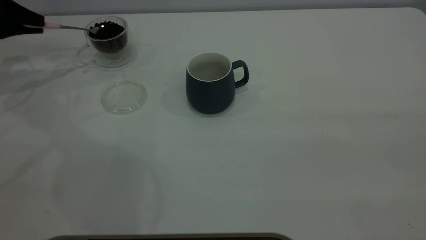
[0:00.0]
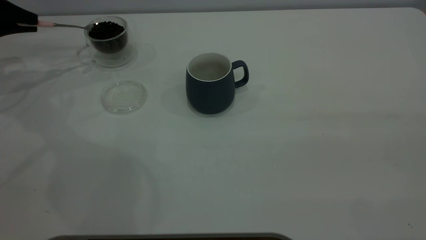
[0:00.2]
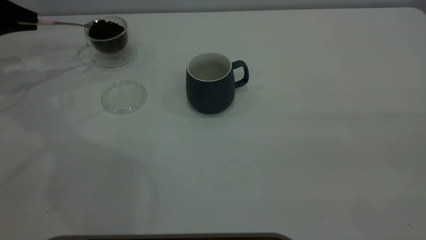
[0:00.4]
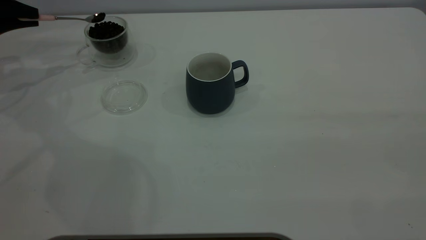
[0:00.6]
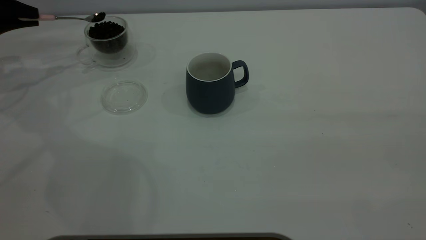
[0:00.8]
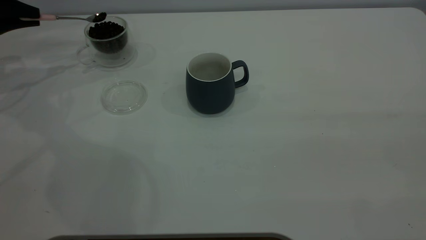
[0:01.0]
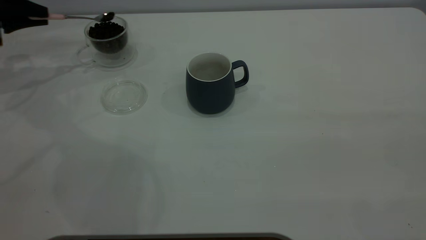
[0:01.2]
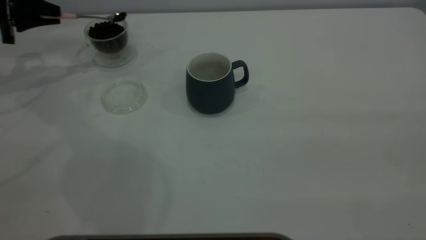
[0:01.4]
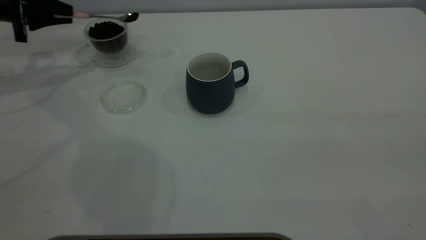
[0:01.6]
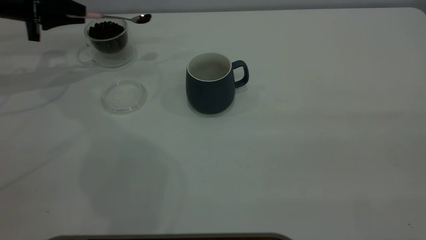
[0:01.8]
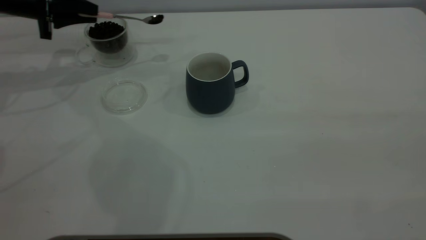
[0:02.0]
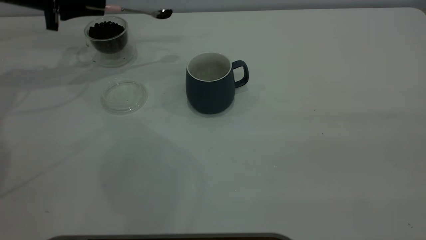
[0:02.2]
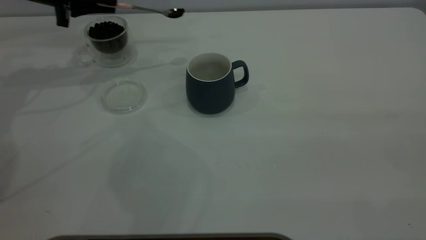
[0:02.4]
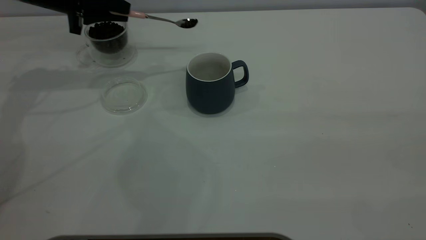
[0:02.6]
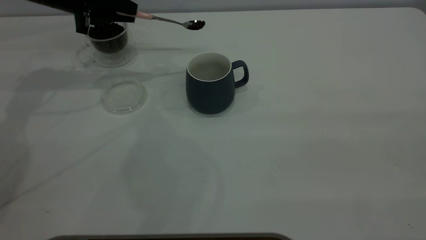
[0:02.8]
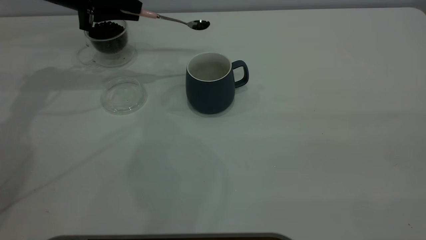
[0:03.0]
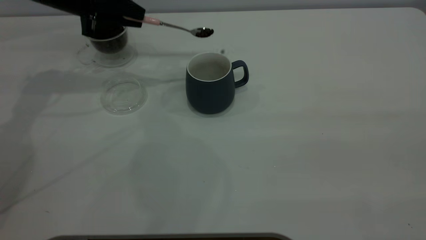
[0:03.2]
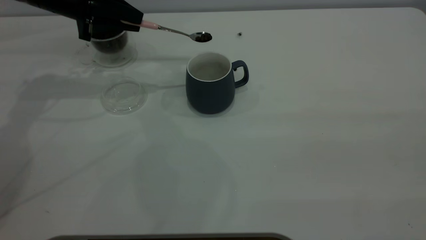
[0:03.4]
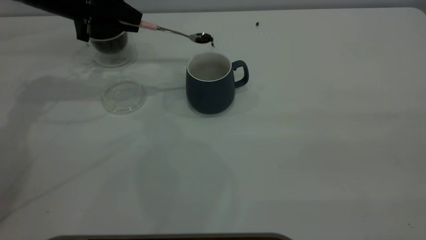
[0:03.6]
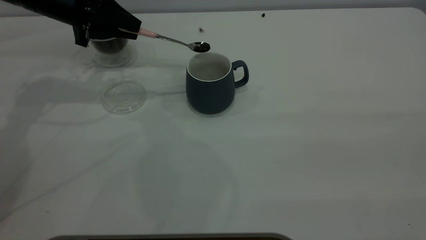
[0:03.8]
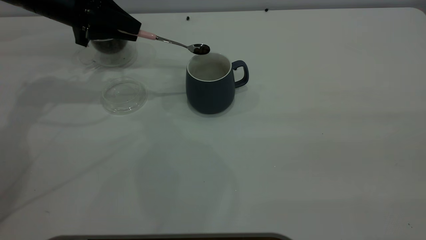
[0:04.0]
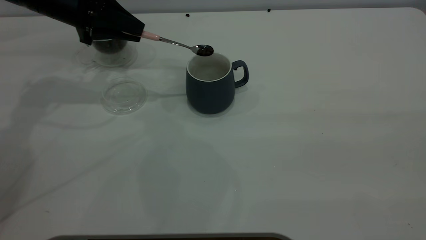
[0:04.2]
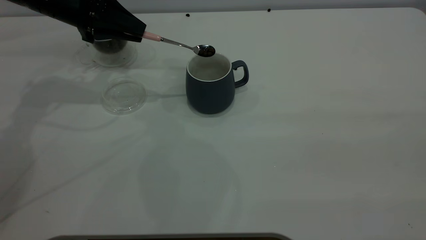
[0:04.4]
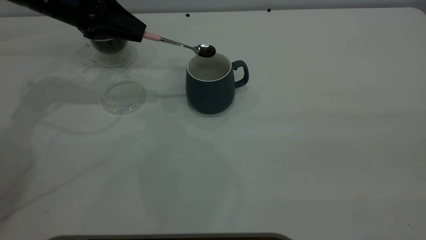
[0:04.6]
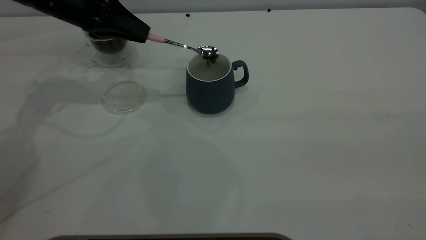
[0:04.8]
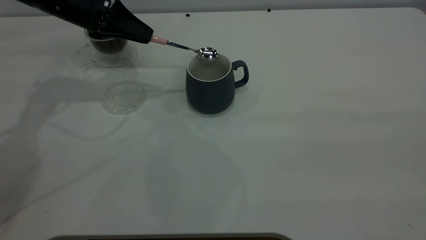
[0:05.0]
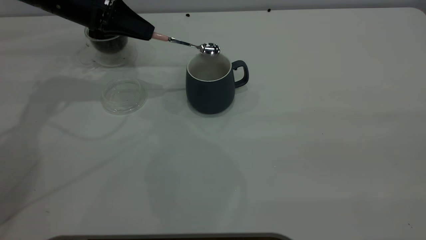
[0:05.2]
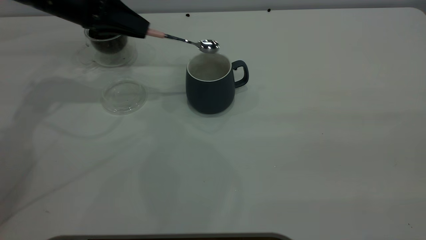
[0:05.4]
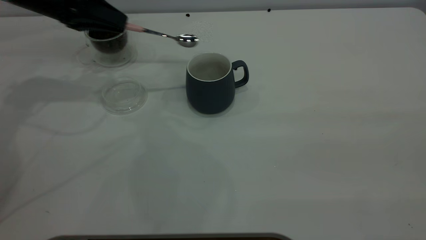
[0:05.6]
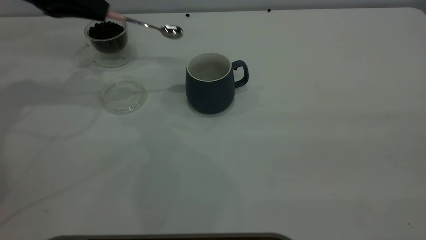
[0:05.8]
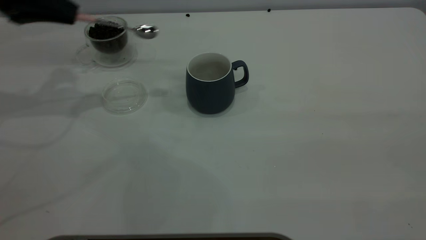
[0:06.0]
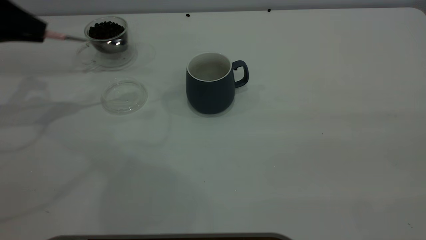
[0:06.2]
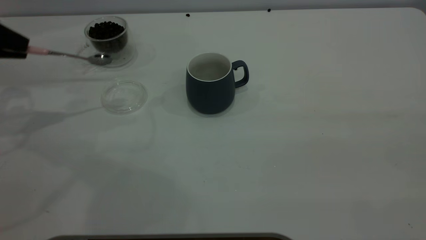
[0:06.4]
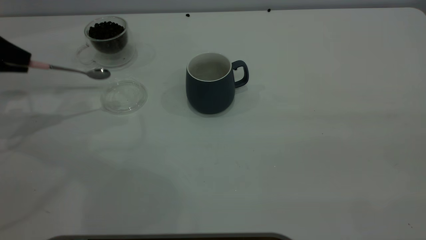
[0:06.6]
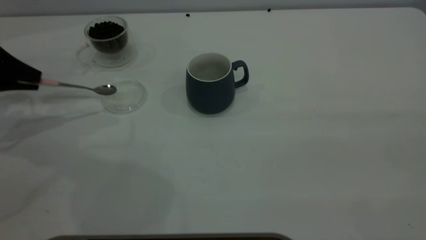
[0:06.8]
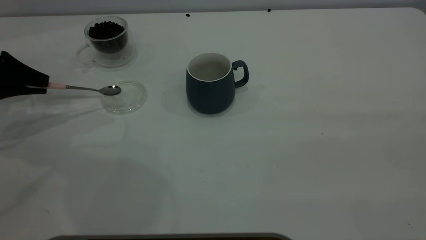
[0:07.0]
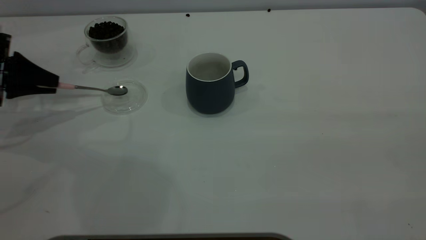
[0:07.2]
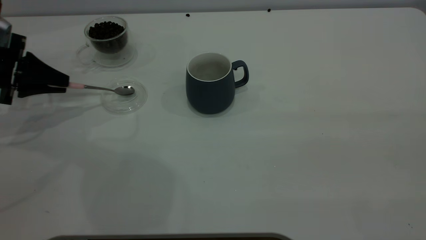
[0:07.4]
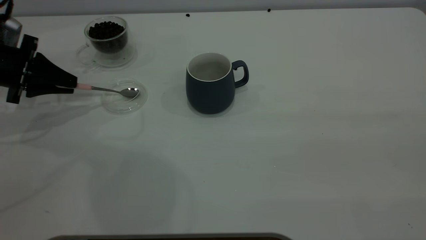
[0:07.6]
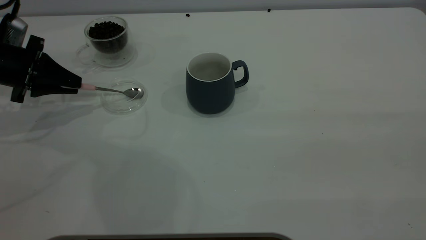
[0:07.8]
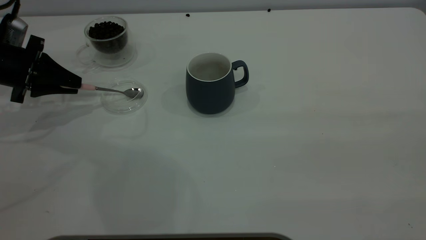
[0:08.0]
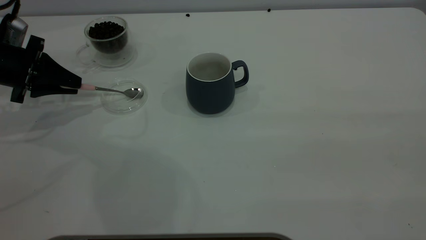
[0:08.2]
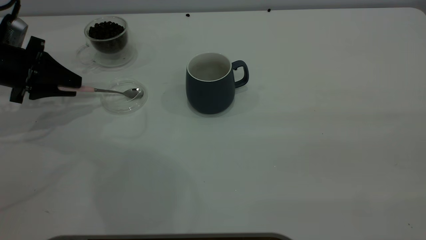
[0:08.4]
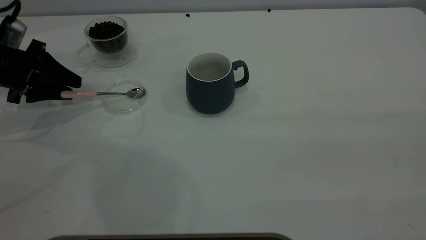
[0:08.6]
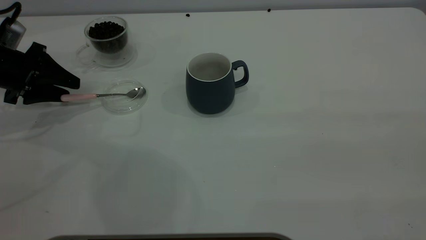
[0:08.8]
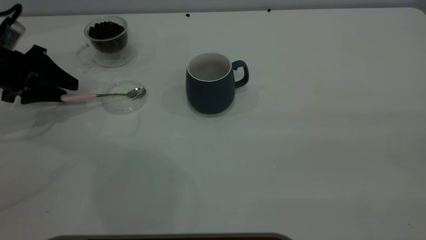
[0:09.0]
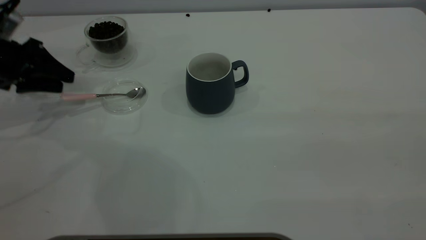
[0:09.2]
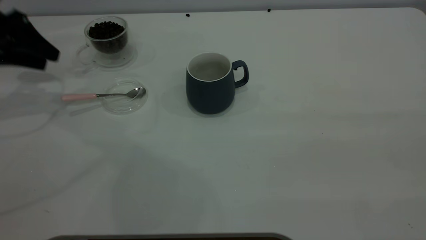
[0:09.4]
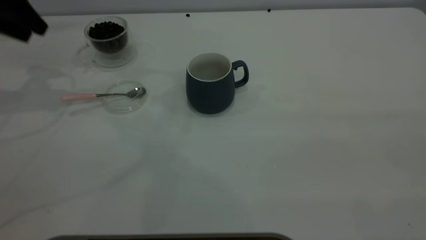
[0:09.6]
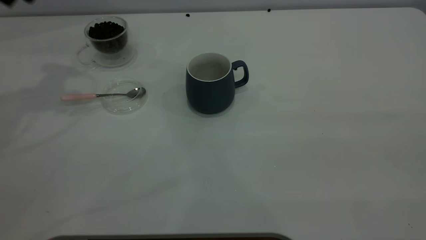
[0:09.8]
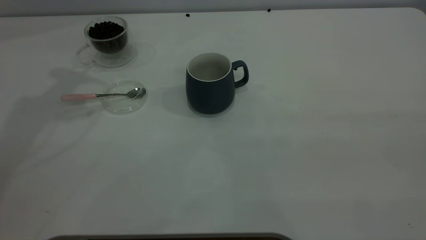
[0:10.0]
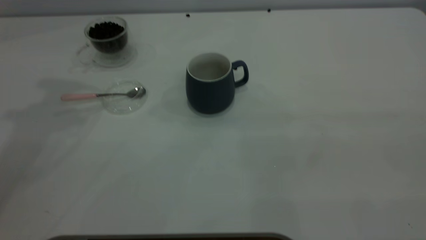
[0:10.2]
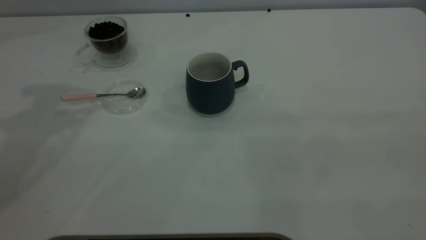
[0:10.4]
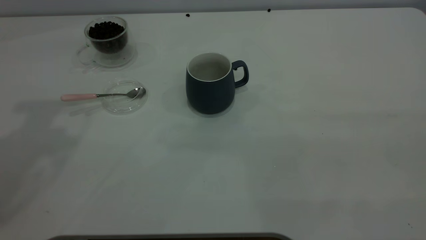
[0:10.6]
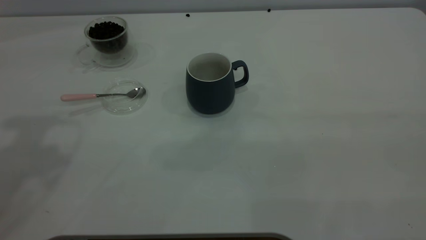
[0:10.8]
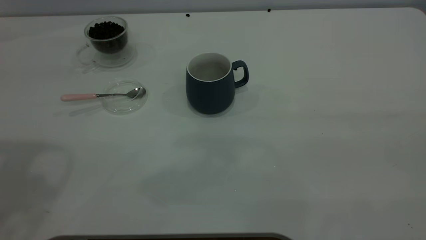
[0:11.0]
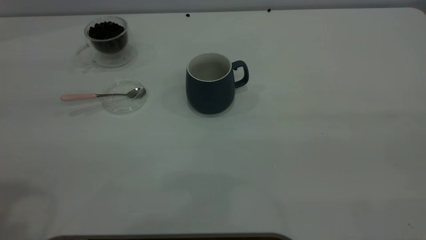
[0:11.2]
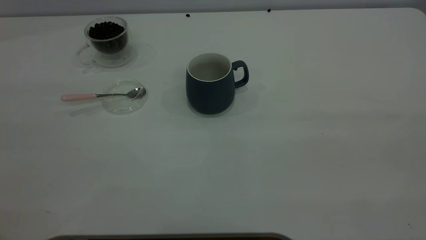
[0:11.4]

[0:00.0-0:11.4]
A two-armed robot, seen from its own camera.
Task of the whole recording: the right gripper place the grey cup in the center of the table, the left gripper take the pink spoon from the cup lid and scoop out the coffee beans from the coffee cup and put them into the grey cup, the left gripper put the spoon back into the cup lid.
Step, 0:00.0 to 0:05.6: Scoop a spoonful of beans into the cup.
Step, 0:05.8 to 0:09.4: Place the spoon back in its original place.
0:00.0 to 0:01.4: The grippers move only a little.
0:01.4 to 0:02.8: The left gripper moves to the right, about 15 cm.
0:02.8 to 0:04.2: The grippers make only small movements.
0:05.6 to 0:07.2: The left gripper moves to the left, backward and downward, approximately 15 cm.
0:07.2 to 0:08.6: The left gripper opens.
0:08.6 to 0:10.0: The left gripper is displaced upward by approximately 30 cm.

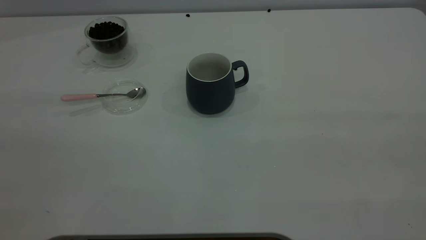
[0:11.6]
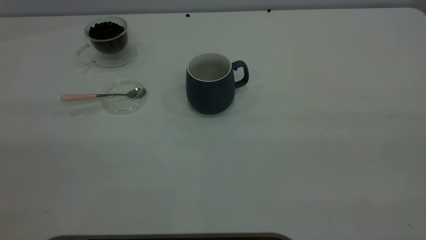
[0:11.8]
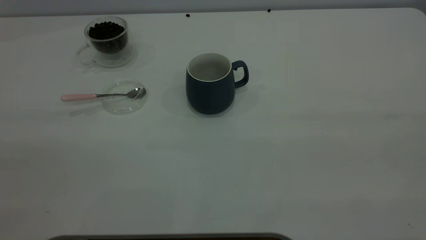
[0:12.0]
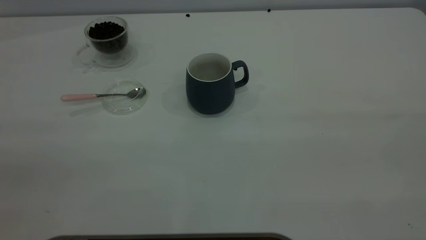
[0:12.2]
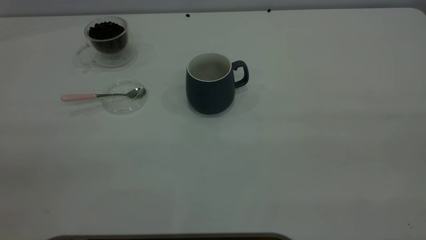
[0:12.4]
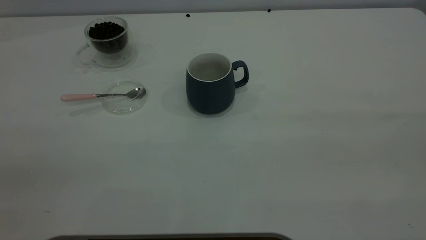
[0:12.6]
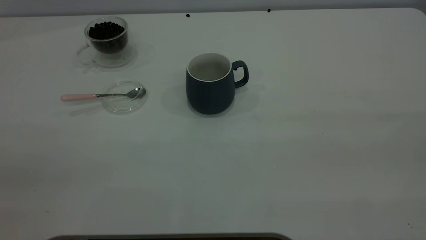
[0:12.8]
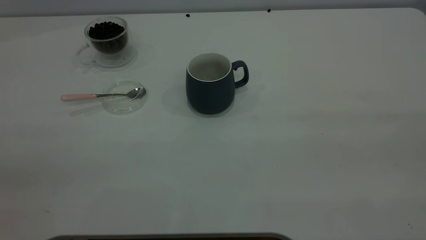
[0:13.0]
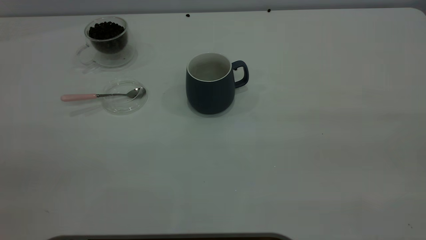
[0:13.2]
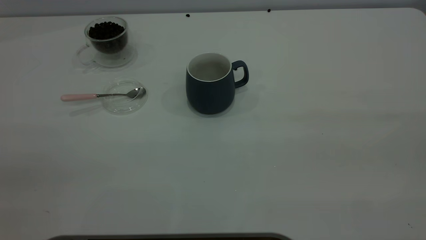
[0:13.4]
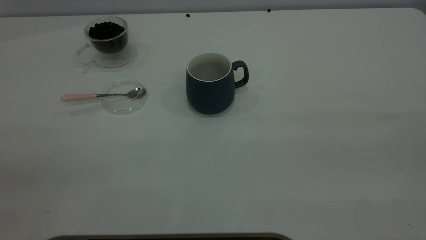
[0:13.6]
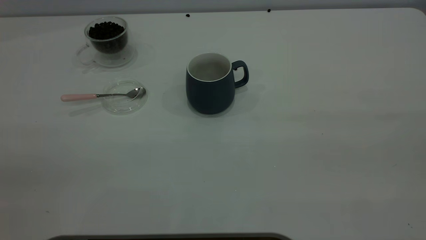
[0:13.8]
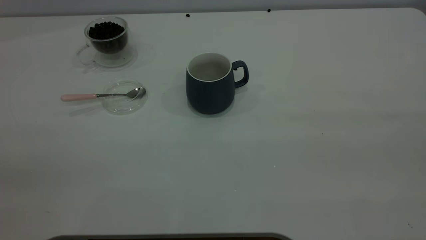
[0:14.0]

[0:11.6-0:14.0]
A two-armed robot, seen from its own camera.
Task of the whole recording: the right gripper place the grey cup in the center of the table, the left gripper take the pink spoon from the cup lid and scoop out the coffee beans from the coffee cup and put them into the grey cup, the left gripper put the spoon back into the cup lid.
0:12.8 to 0:14.0: The two grippers keep their place.

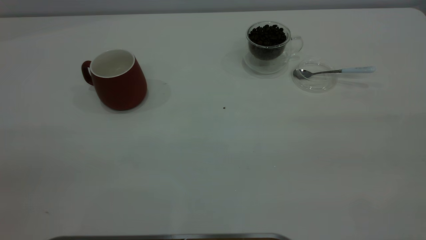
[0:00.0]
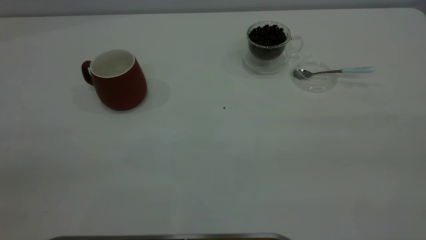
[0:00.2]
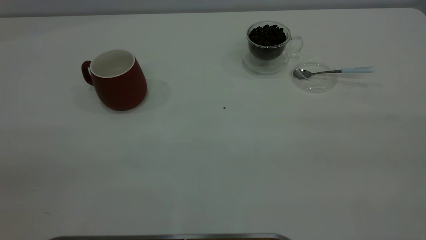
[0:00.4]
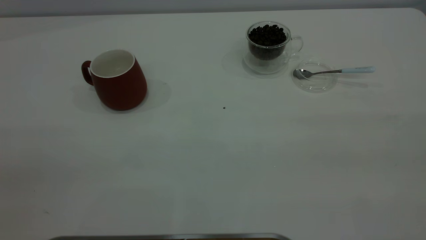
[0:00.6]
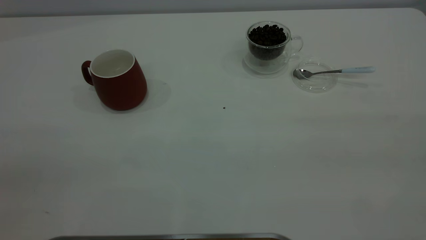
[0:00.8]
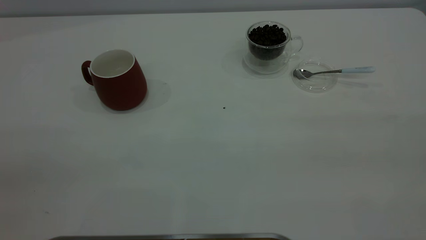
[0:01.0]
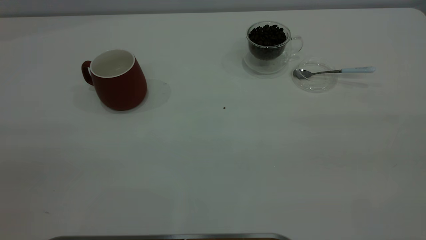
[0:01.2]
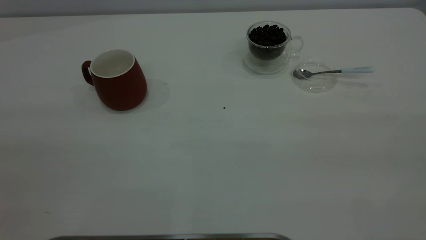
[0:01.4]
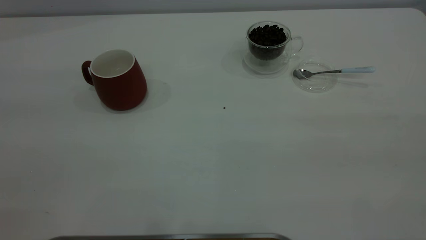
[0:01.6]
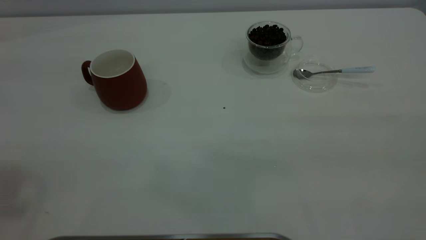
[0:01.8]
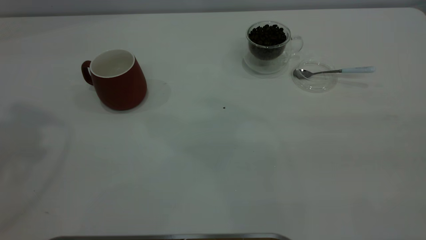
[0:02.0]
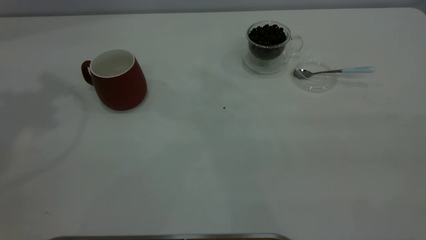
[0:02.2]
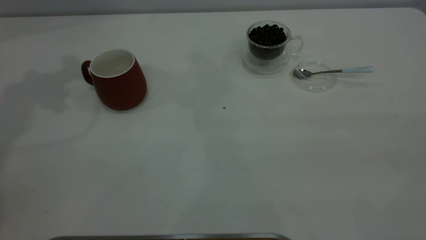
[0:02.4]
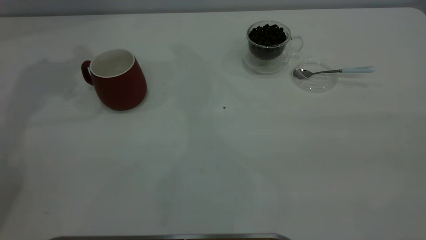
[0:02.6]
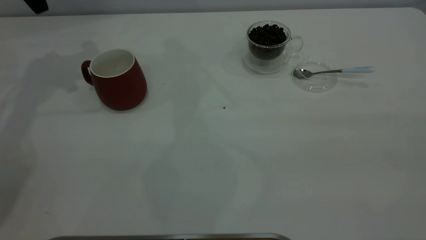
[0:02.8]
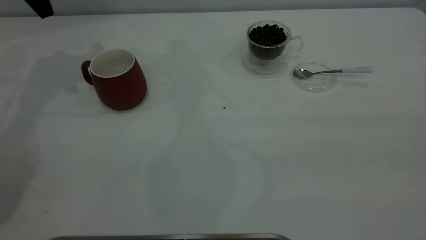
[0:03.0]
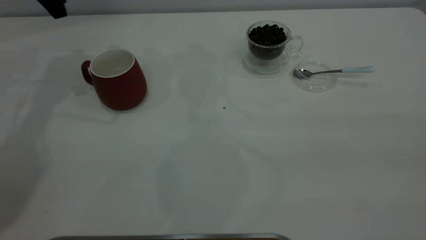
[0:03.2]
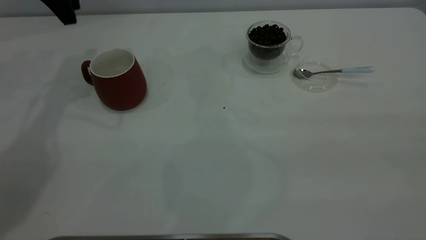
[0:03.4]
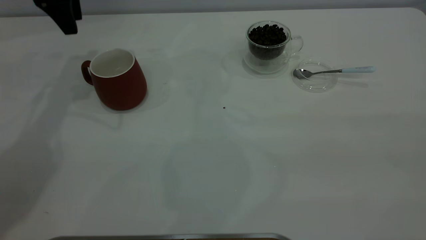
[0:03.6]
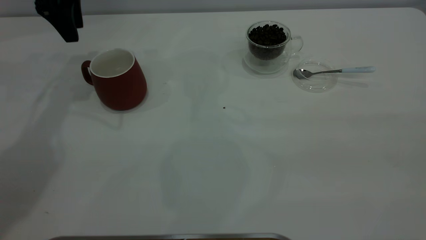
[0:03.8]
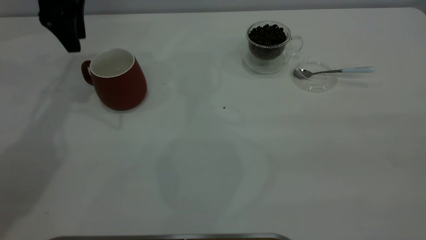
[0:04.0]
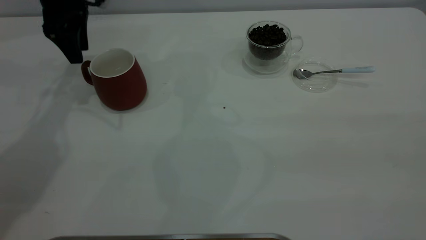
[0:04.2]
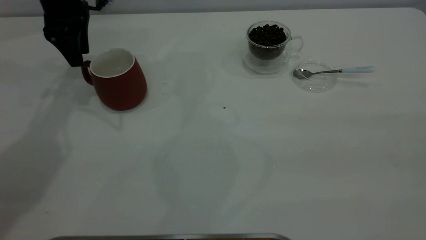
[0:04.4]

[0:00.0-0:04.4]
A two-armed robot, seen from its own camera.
Task of the whole recording: the left gripper place the red cup in the center of the table, the right gripper take the blue spoon from the cup lid and scoop out the coffee beans from the coffee cup and put them into the red cup, the right gripper put the spoon back into the cup lid.
0:03.0 to 0:04.4: The left gripper moves downward, some 10 cm.
